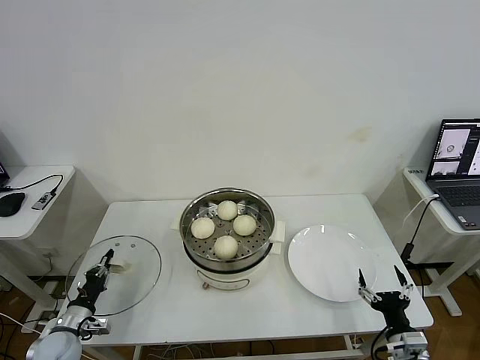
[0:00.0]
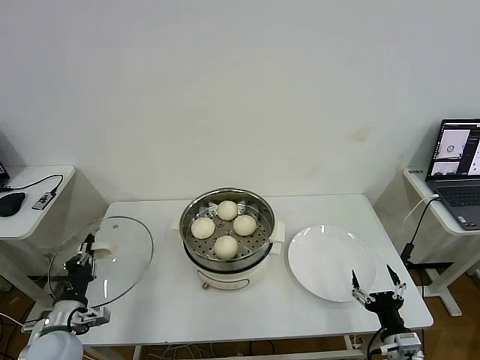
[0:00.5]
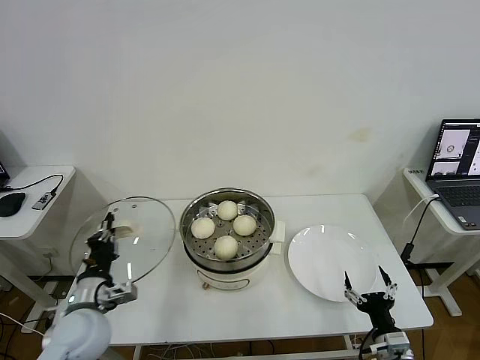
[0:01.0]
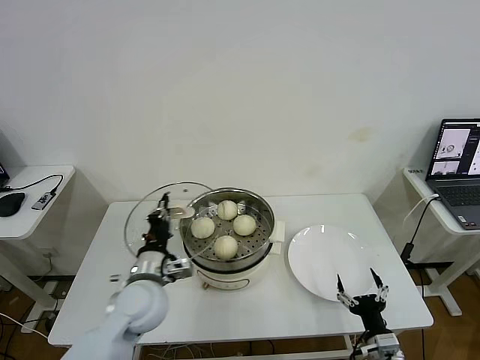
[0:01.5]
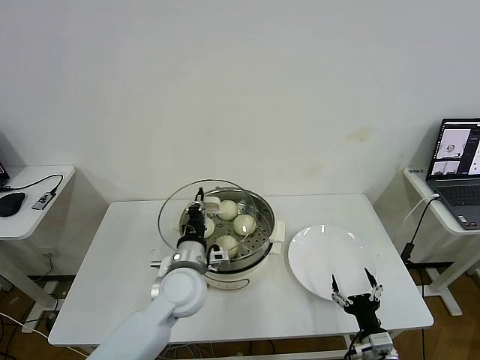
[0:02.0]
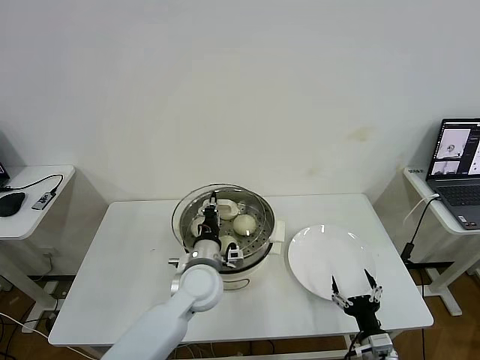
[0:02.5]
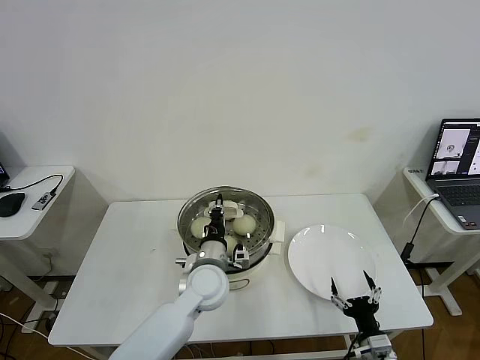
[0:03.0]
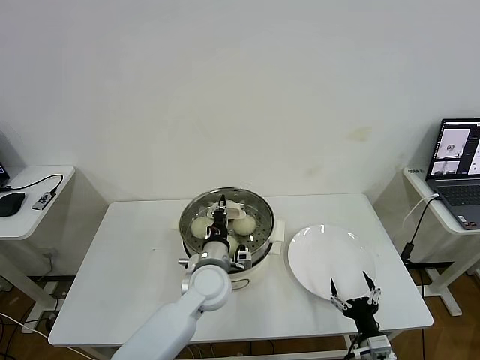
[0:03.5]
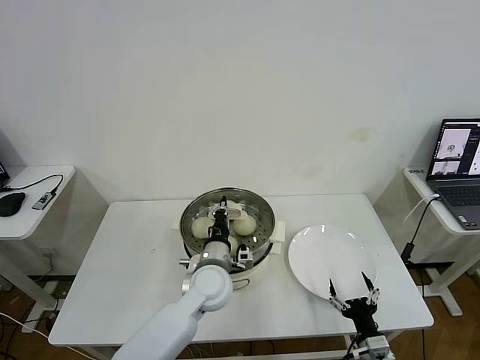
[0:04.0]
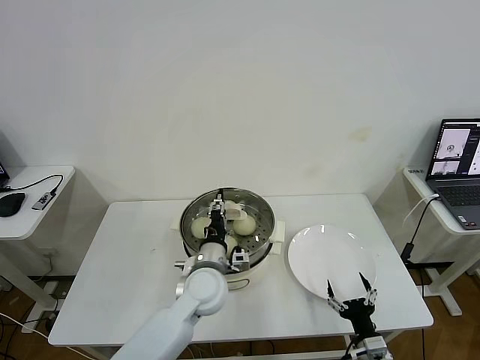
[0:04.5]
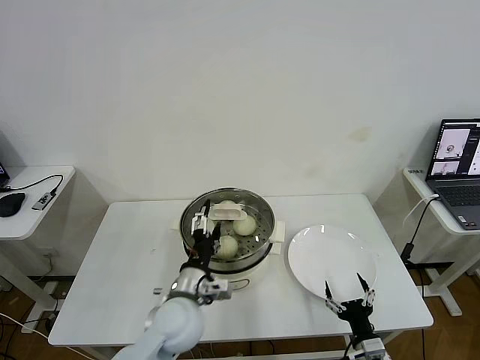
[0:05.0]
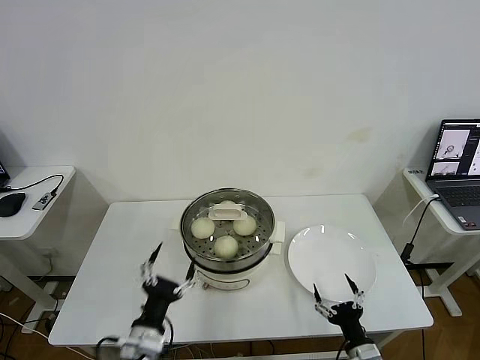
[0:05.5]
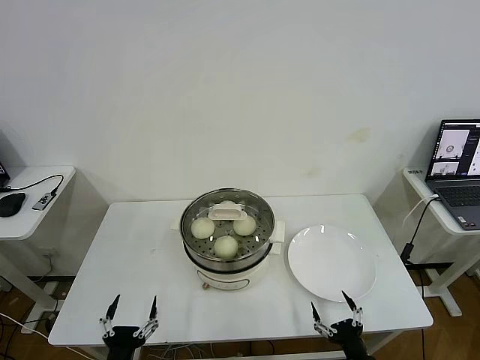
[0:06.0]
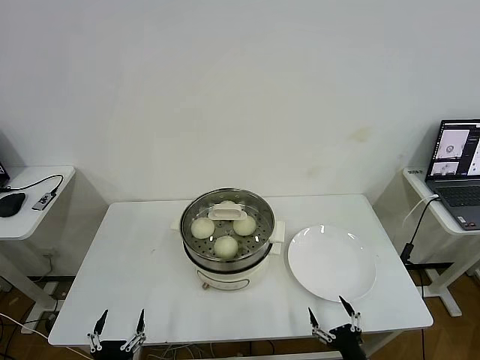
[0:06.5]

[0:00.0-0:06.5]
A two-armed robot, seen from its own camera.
Task of the whole recording: take steamed baozi put them in steamer then cover it.
Step, 0:00.0 to 0:05.0: Place the pot lid on the steamer with left gripper.
0:00.0 to 0:02.0: The right gripper moves roughly 5 cm. Meanwhile the left gripper is displaced to the right and upward by approximately 35 cm.
0:02.0 to 0:04.5: The left gripper heads to the right, covering some 5 cm, and opens up.
0:04.5 to 0:06.5: The left gripper heads backward, to the left and downward, covering roughly 35 cm, and opens; the right gripper heads backward, covering roughly 5 cm.
